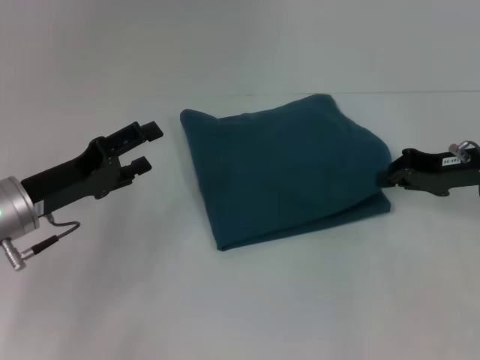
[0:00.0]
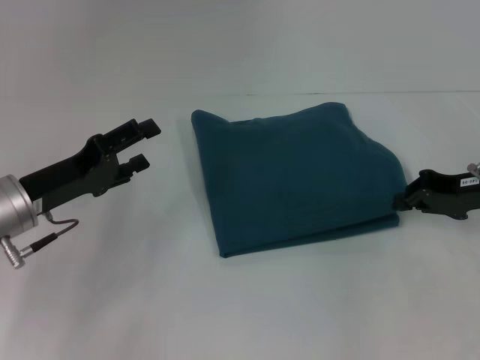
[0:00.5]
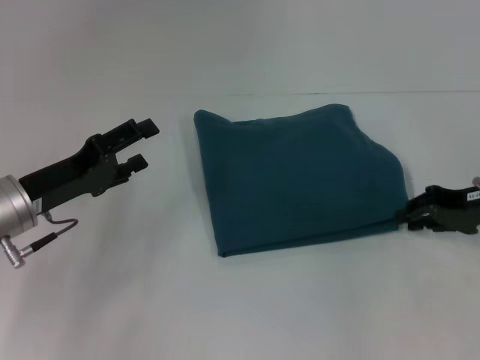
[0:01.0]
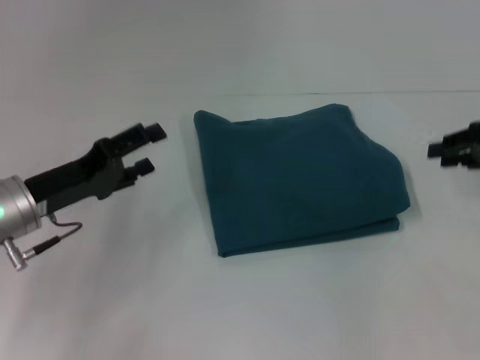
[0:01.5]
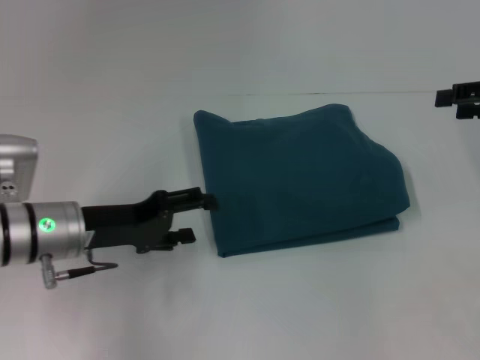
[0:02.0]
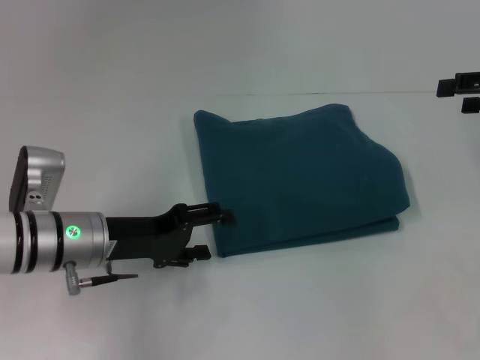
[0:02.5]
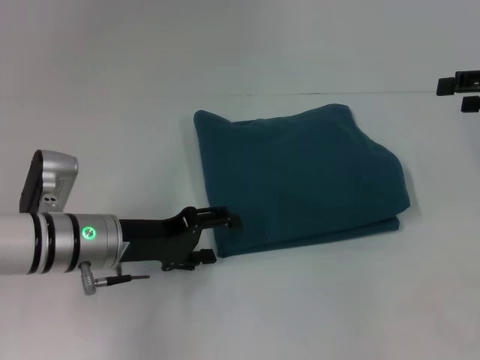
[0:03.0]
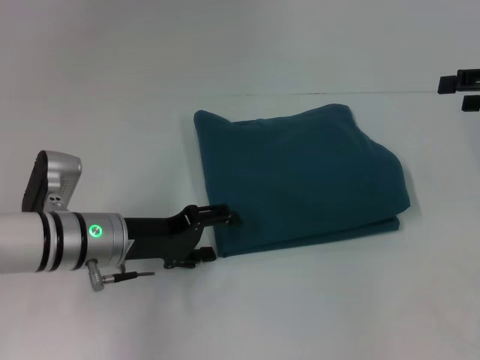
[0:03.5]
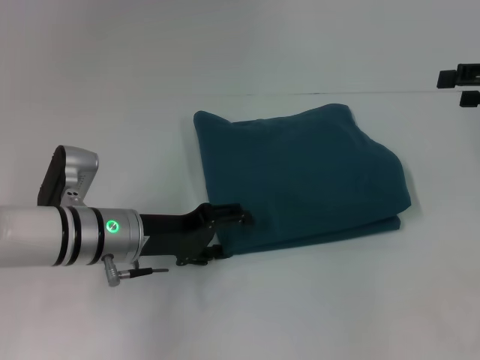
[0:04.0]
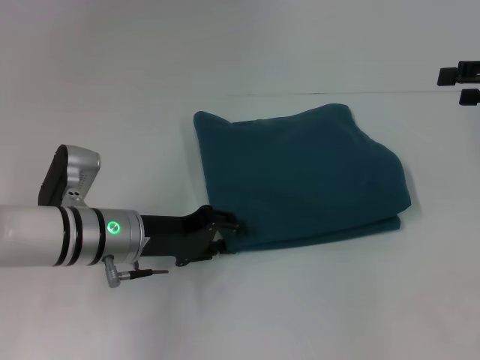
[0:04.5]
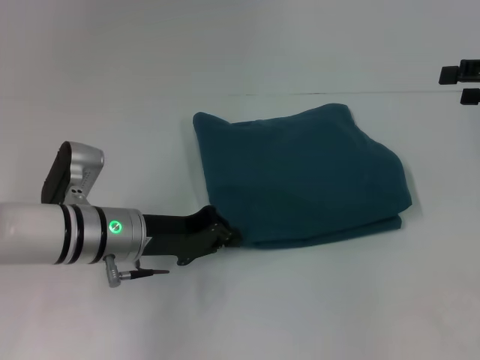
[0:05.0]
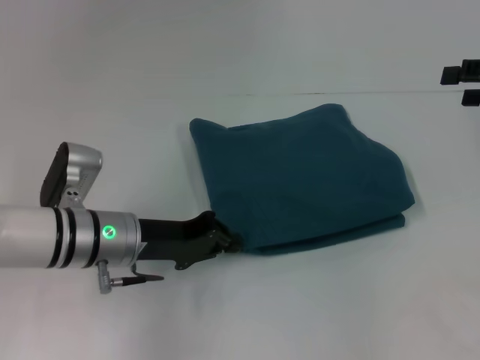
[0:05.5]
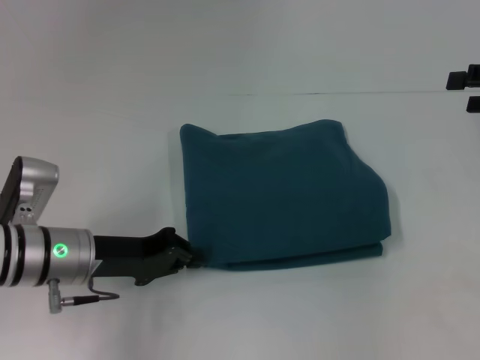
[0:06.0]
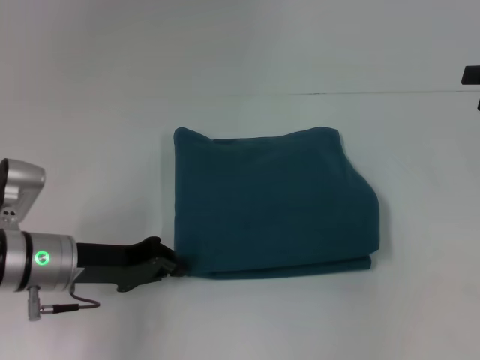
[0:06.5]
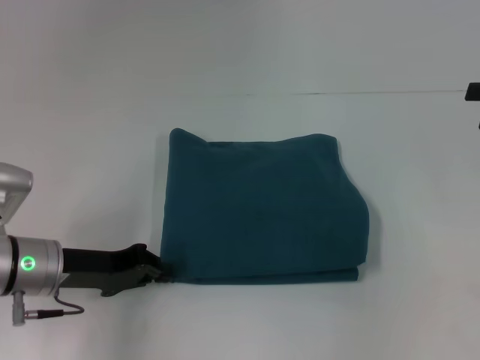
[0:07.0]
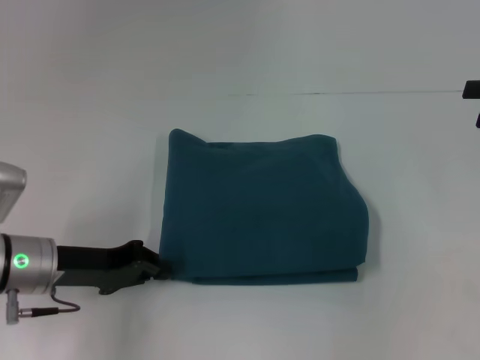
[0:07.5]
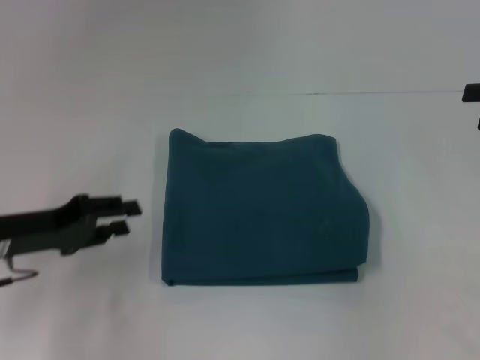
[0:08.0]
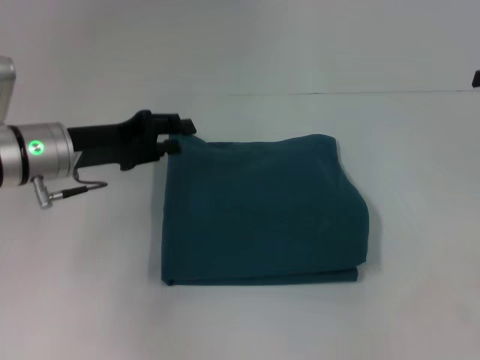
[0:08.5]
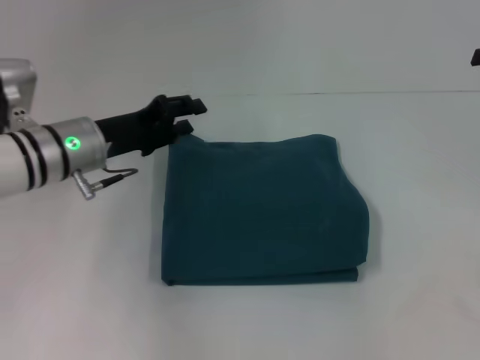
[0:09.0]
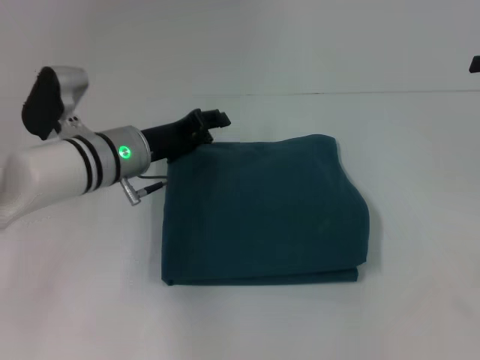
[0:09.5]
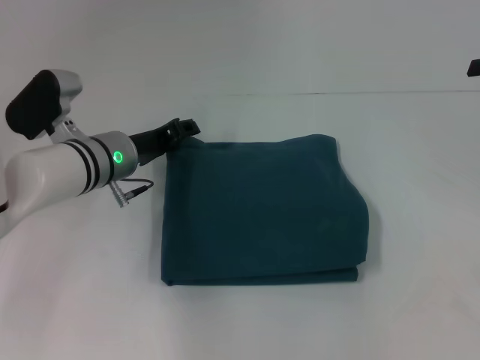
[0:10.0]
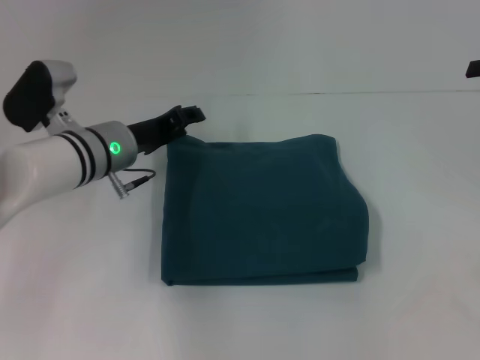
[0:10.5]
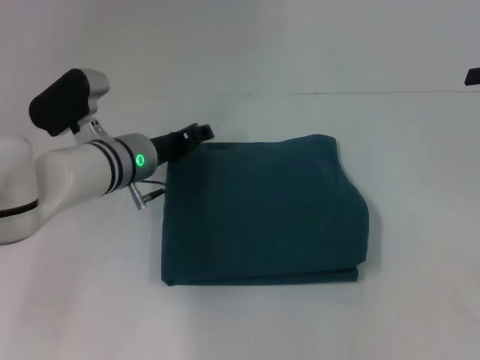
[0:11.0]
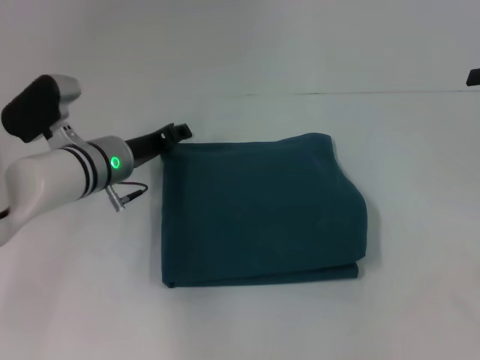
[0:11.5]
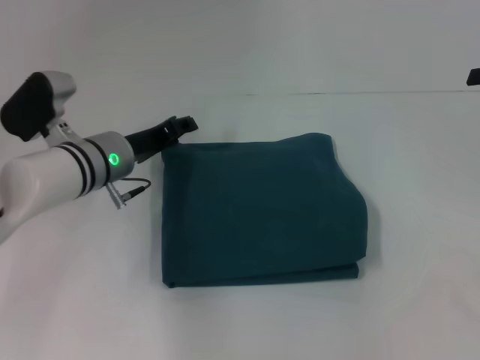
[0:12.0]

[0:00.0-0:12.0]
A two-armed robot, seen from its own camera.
0:00.0 to 0:02.0: The right gripper goes approximately 10 cm upward and to the right, and opens up.
0:02.0 to 0:04.0: The left gripper travels to the right by approximately 5 cm.
0:04.0 to 0:06.0: The left gripper closes up.
0:06.0 to 0:08.0: The left gripper goes roughly 10 cm to the left.
0:08.0 to 0:10.0: The left gripper goes approximately 15 cm to the right and forward.
0:10.0 to 0:12.0: The grippers move only a little.

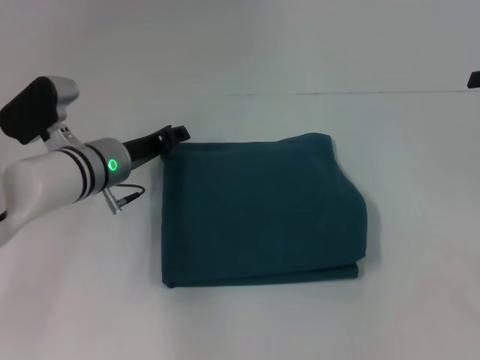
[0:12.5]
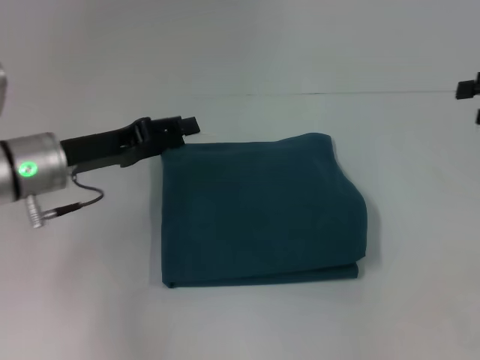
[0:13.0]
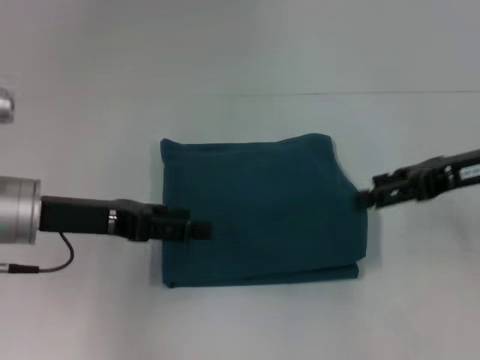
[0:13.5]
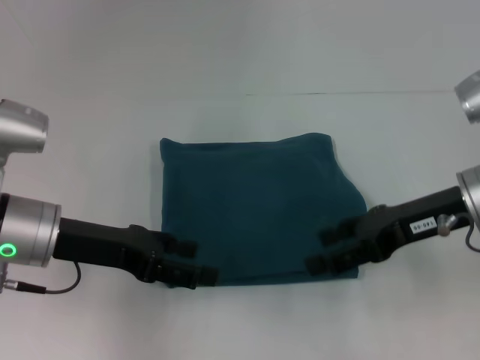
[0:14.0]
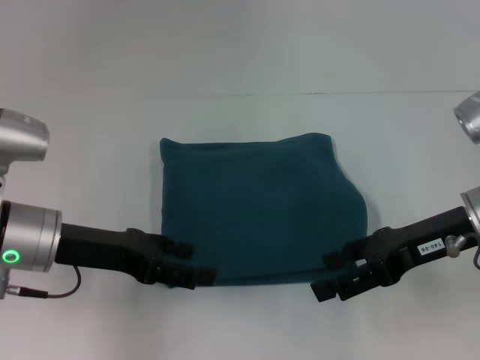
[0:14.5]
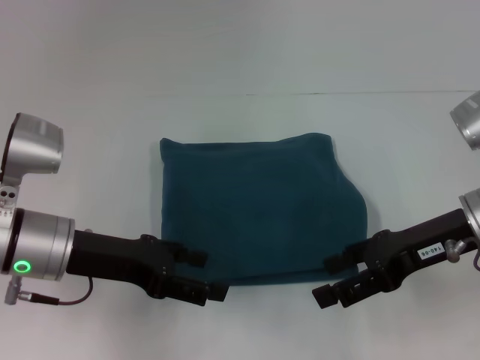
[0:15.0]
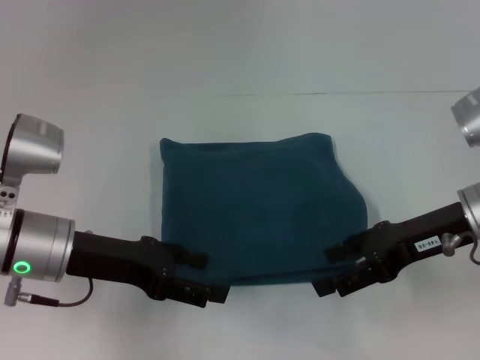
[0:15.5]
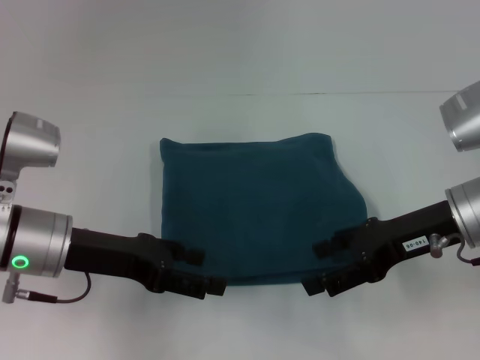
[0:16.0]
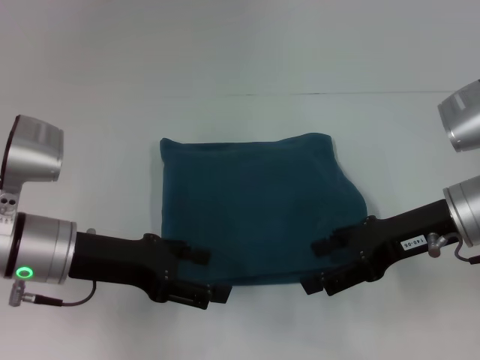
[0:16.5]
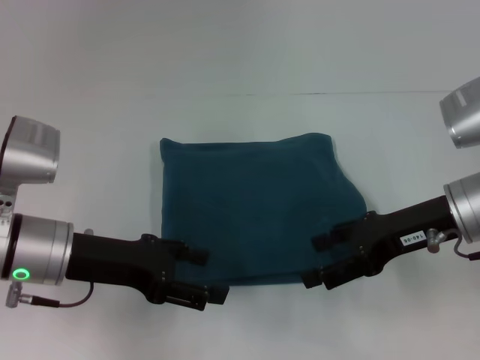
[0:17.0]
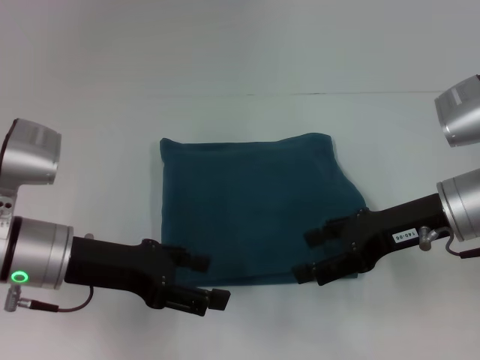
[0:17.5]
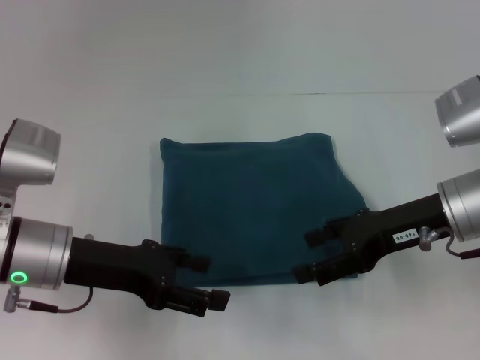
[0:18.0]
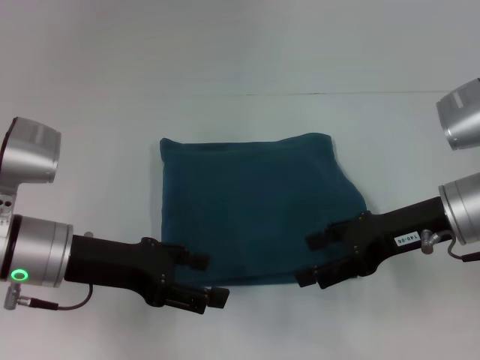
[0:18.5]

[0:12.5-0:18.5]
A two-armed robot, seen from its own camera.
0:12.5 to 0:14.5: The left gripper goes roughly 10 cm backward and to the left, and opens, while the right gripper is displaced to the left, downward and backward by roughly 20 cm.
0:14.5 to 0:16.5: The grippers stay close to where they were, moving slightly.
0:16.5 to 0:18.5: Both grippers stay about where they are.

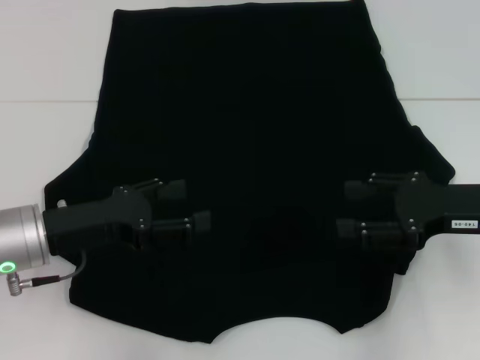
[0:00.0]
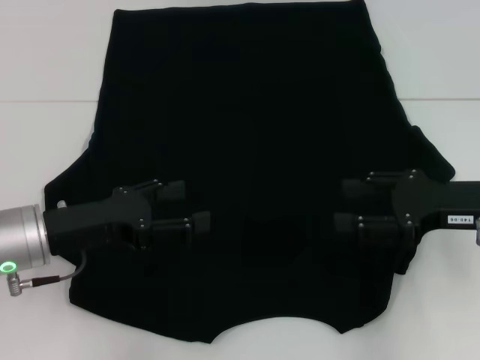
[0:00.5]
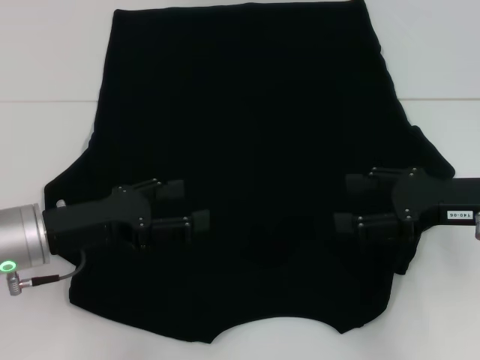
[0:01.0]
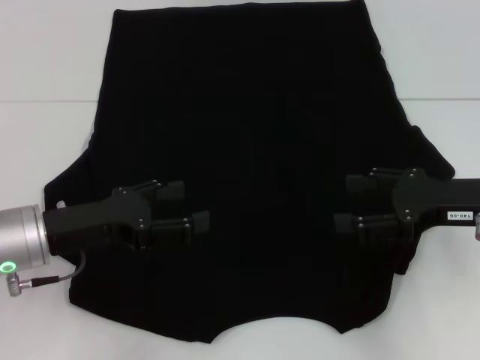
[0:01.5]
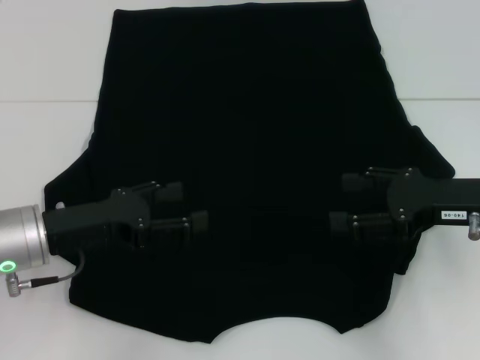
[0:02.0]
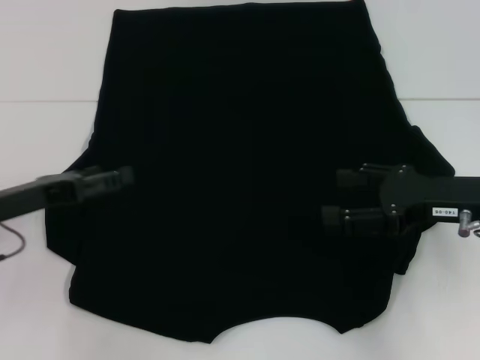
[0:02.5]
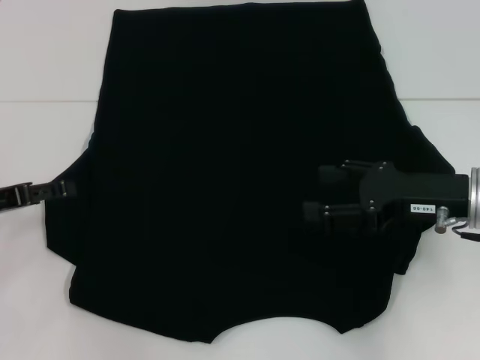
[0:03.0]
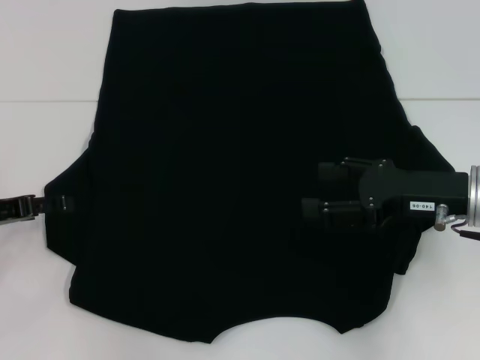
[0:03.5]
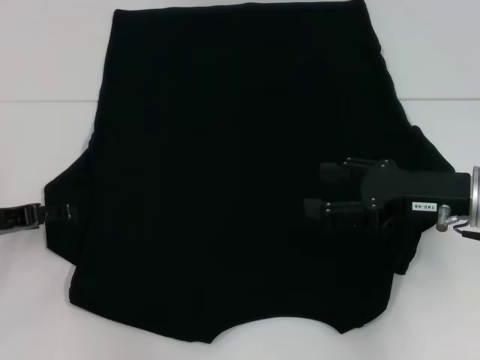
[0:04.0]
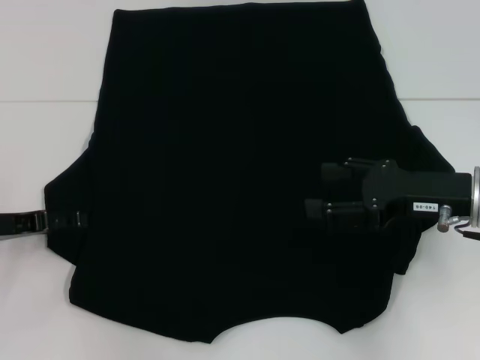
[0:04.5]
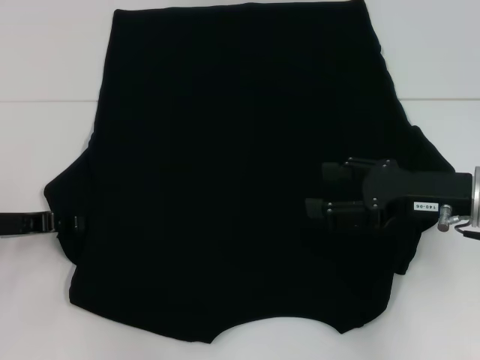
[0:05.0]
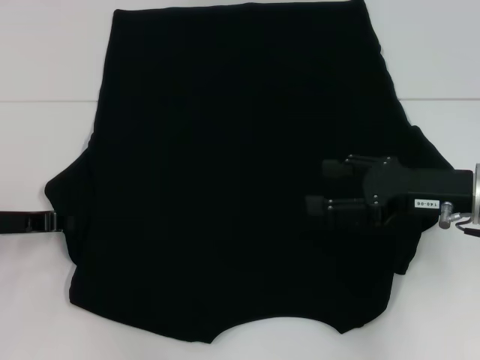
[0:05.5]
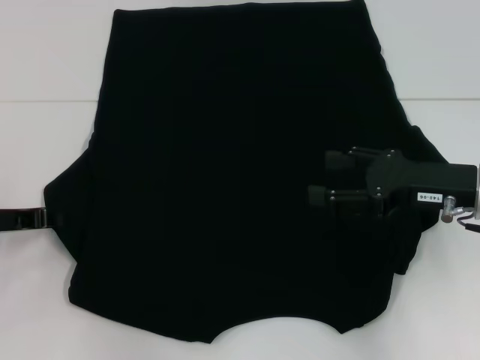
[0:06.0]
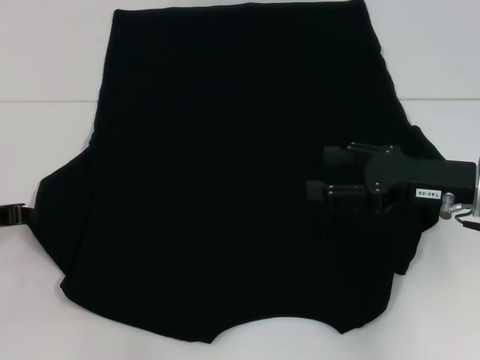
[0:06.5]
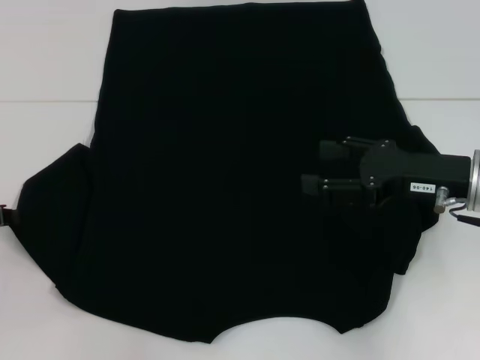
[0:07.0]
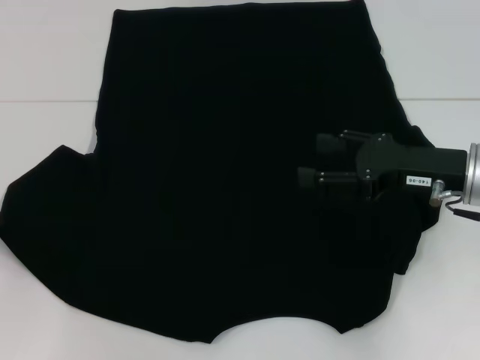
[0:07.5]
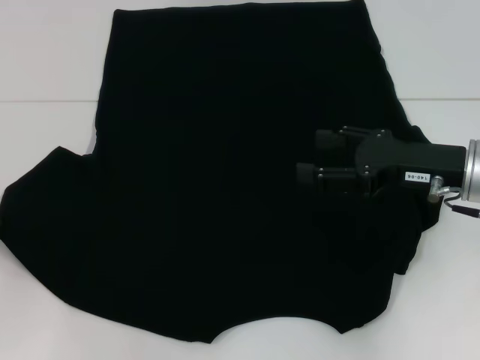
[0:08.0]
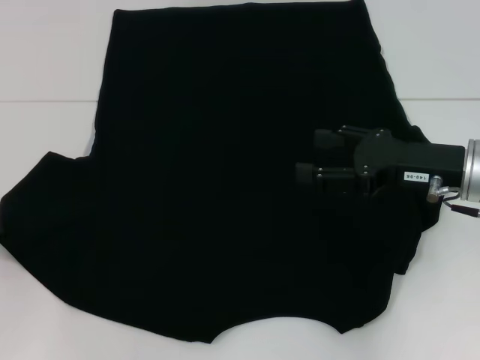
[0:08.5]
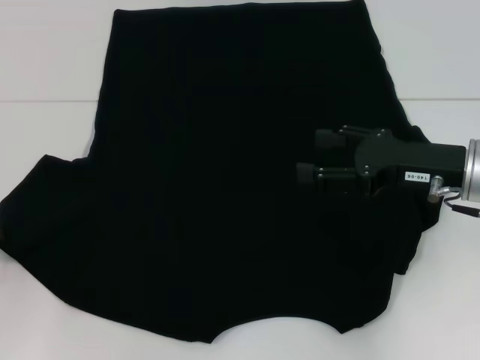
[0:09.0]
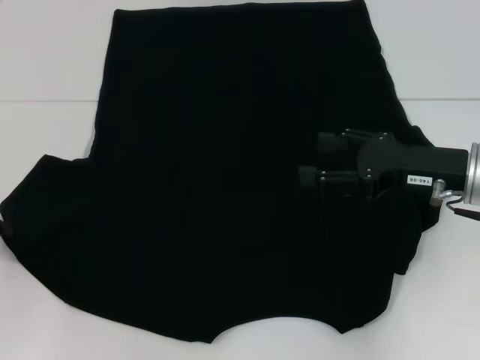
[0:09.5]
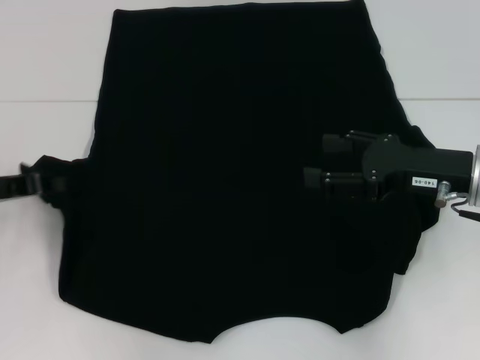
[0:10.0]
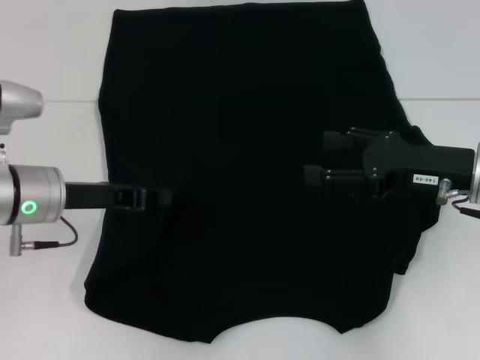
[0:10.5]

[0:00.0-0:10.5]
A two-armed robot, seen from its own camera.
0:00.0 to 0:02.0: Both grippers stay about where they are.
0:02.0 to 0:04.0: The left gripper is displaced to the left by roughly 10 cm.
0:04.0 to 0:06.5: The left gripper closes up.
0:06.5 to 0:08.5: The grippers make only small movements.
0:08.5 to 0:10.5: The left gripper heads to the right and forward, covering about 15 cm.
